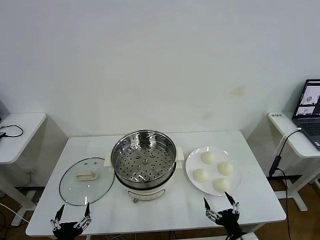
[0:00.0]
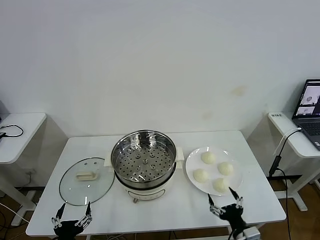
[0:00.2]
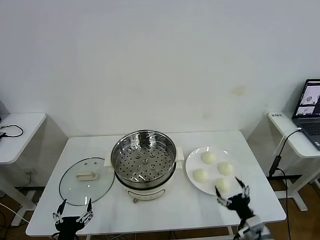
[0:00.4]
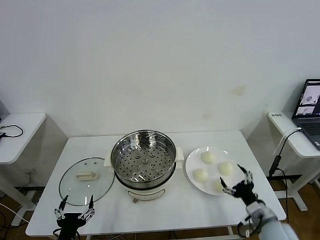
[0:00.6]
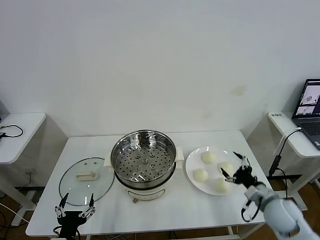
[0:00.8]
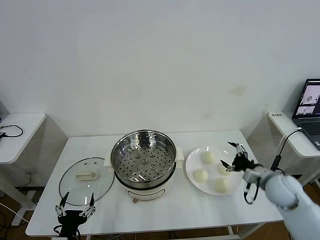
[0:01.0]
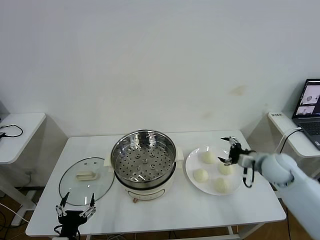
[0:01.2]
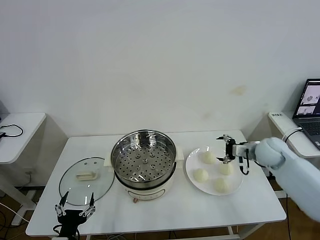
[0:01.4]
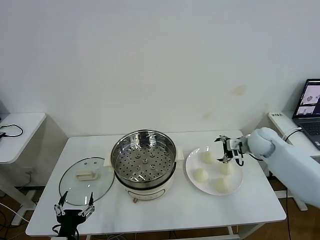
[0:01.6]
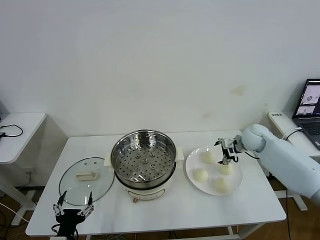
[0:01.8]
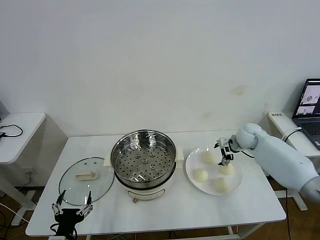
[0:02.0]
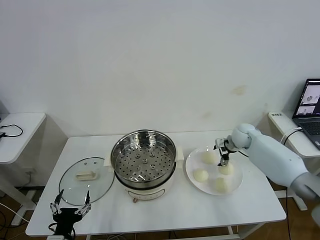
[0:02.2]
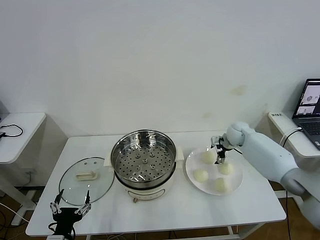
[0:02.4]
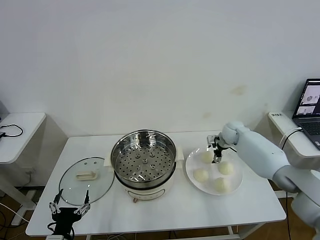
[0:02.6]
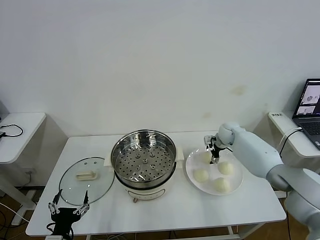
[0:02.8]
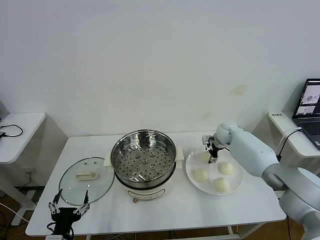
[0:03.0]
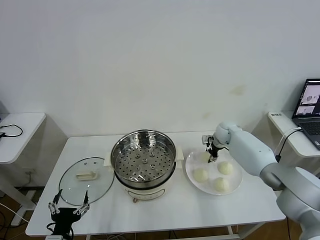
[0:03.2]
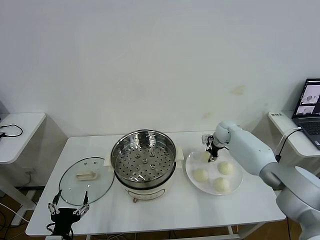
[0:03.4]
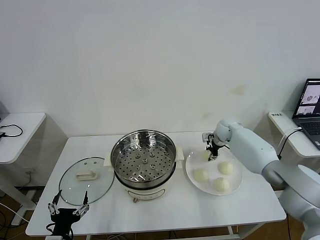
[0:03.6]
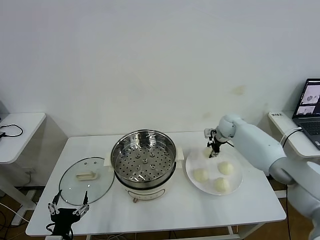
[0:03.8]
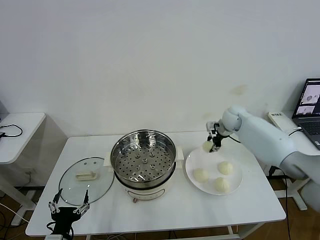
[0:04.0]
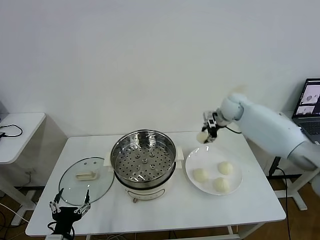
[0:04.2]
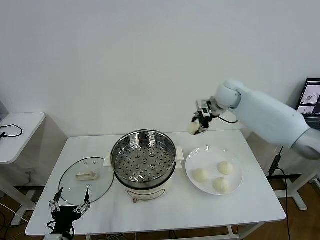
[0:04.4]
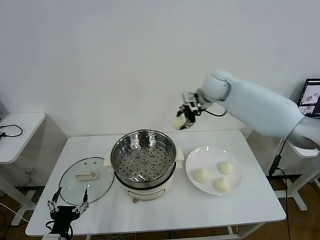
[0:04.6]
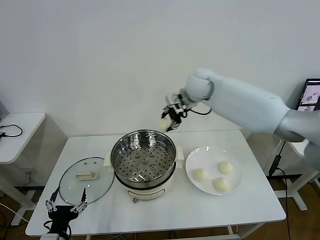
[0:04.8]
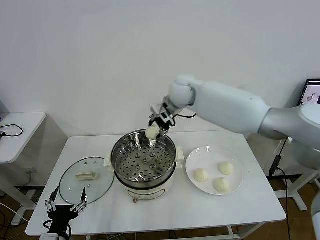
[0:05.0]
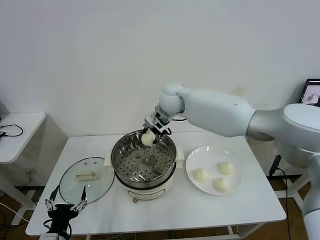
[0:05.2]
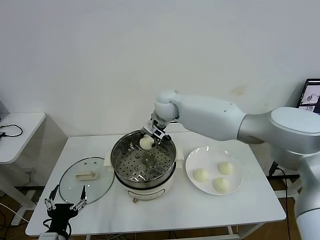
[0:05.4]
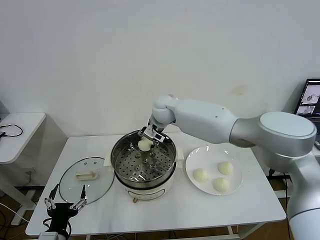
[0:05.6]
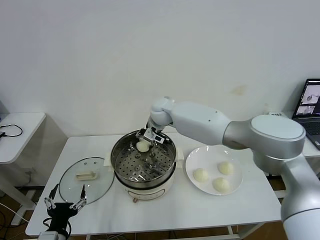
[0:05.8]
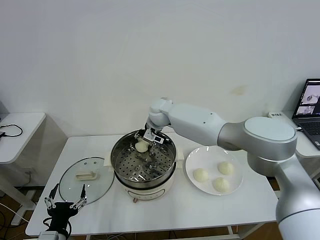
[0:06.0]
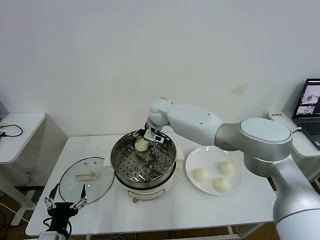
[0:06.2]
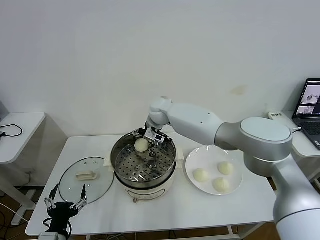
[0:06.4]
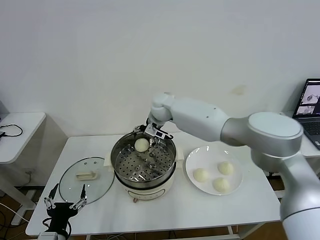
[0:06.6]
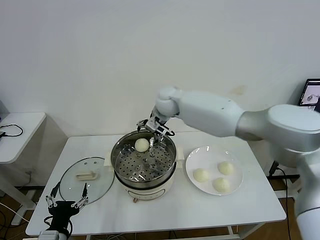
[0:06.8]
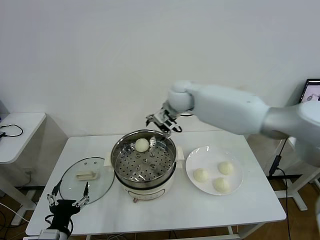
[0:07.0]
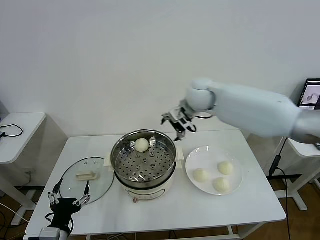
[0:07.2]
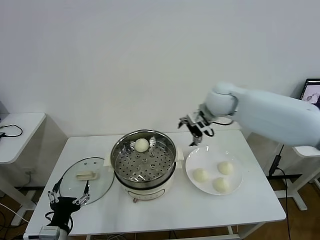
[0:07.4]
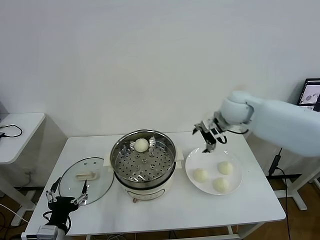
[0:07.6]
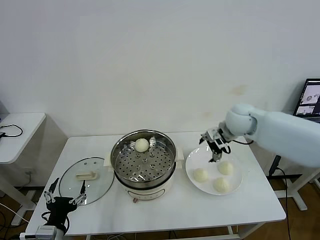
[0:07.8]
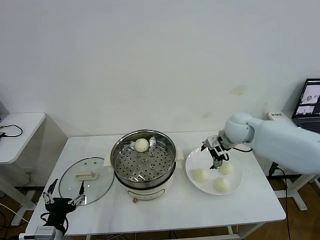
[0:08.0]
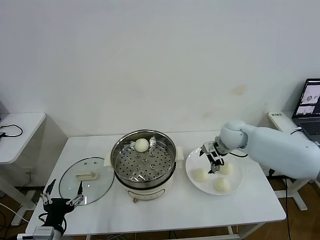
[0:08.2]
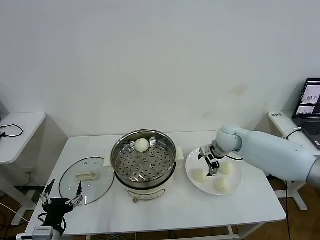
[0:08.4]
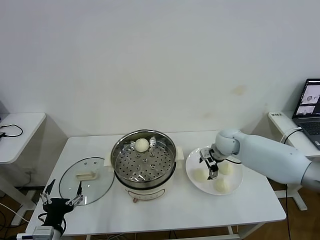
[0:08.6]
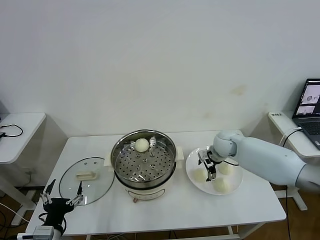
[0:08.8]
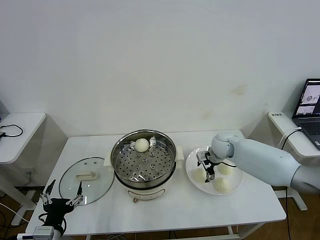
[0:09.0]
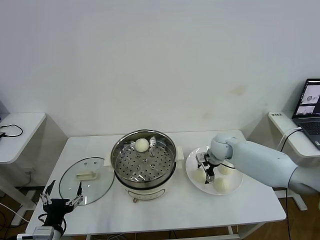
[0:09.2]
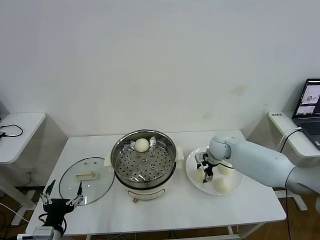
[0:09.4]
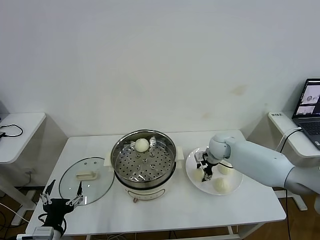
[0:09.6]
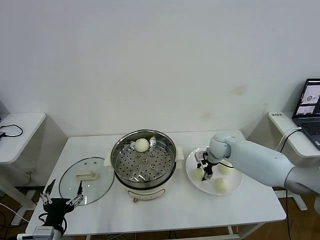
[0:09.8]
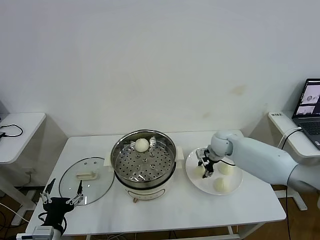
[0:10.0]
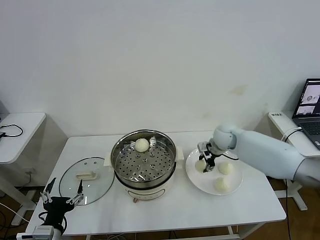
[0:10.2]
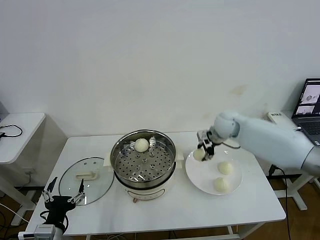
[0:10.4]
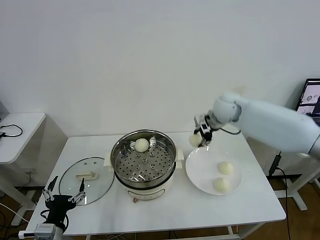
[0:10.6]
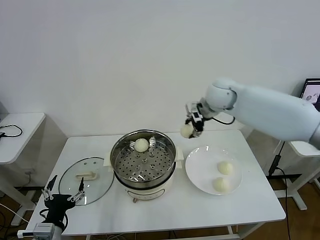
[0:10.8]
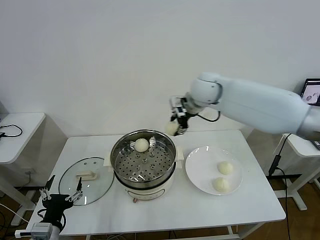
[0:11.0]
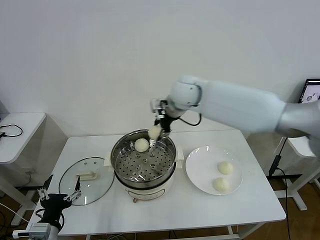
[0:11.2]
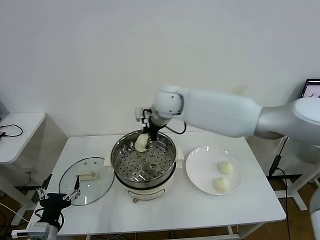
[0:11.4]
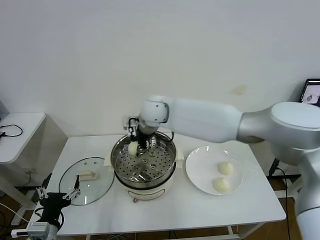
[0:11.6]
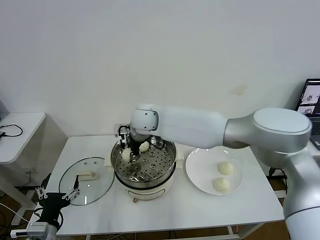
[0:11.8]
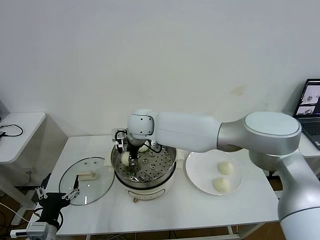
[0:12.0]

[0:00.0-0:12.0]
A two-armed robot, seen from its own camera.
Task of the whole recording: take steamed baozi put them in steamer then cover it.
Step, 0:00.0 to 0:03.2: Grasp the baozi in the plate with right gripper.
Step, 0:03.4 to 0:06.2: Place the baozi on the steamer with right gripper.
Step, 0:06.4 to 0:09.6: Grasp the baozi in the plate with right gripper.
0:01.6 to 0:03.0: The right gripper is displaced forward, to the left and downward by about 15 cm, and closes.
0:03.0 to 0:04.4: The right gripper moves upward, roughly 25 cm.
0:04.4 to 0:06.0: The right gripper moves to the left and downward, about 20 cm, and opens.
0:06.0 to 0:07.6: The right gripper goes some 25 cm to the right, and opens up.
0:07.6 to 0:09.0: The right gripper heads downward, covering about 15 cm.
0:09.0 to 0:10.4: The right gripper travels upward by about 15 cm, and closes up.
0:10.4 to 0:12.0: The right gripper travels to the left by some 30 cm.

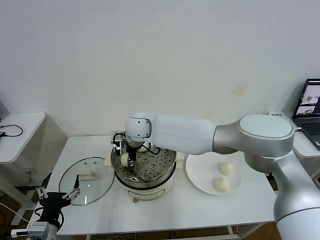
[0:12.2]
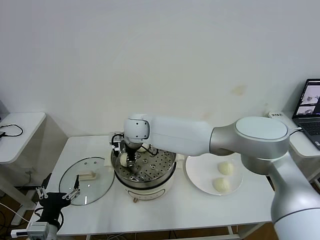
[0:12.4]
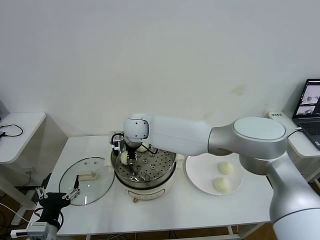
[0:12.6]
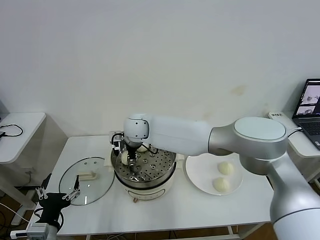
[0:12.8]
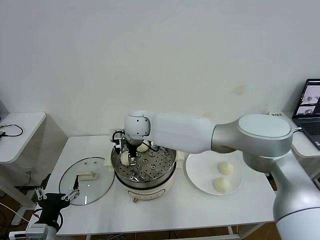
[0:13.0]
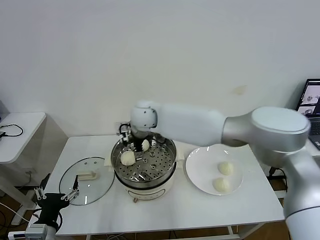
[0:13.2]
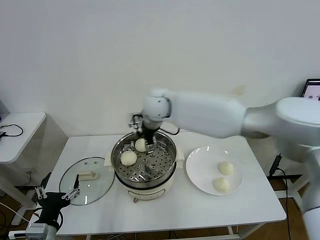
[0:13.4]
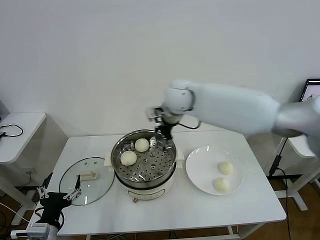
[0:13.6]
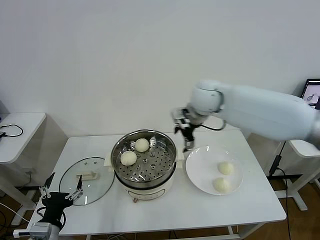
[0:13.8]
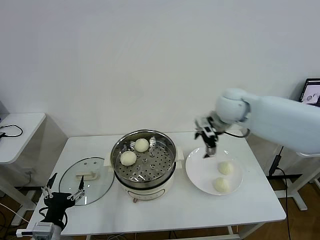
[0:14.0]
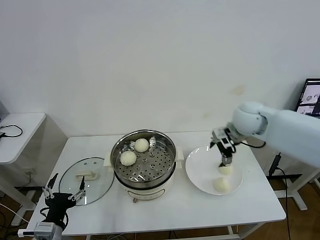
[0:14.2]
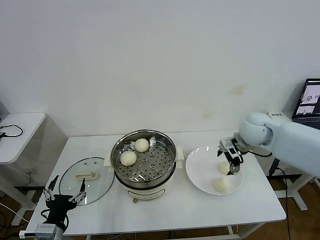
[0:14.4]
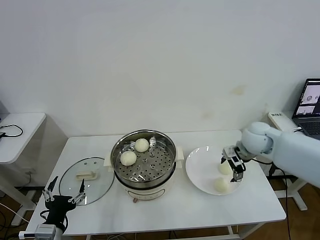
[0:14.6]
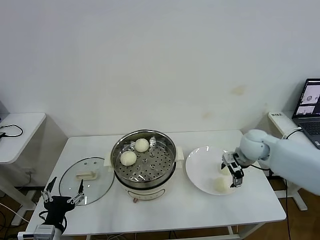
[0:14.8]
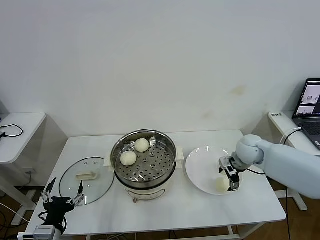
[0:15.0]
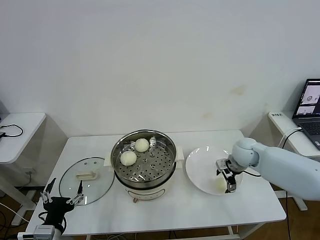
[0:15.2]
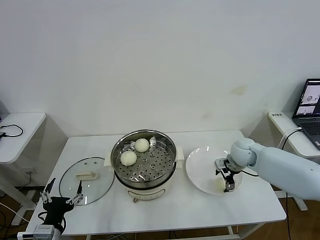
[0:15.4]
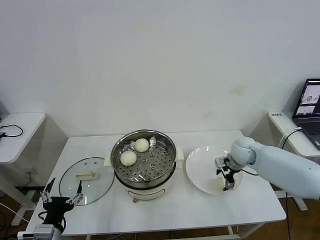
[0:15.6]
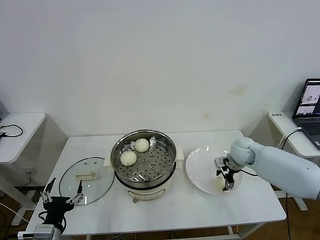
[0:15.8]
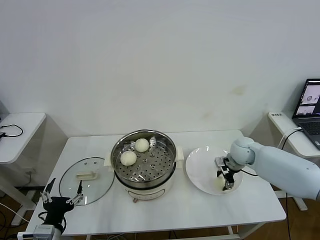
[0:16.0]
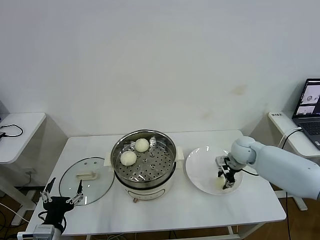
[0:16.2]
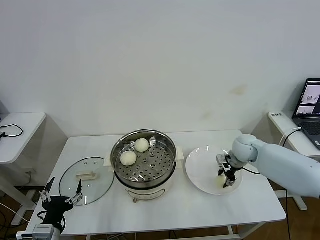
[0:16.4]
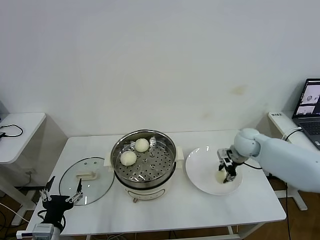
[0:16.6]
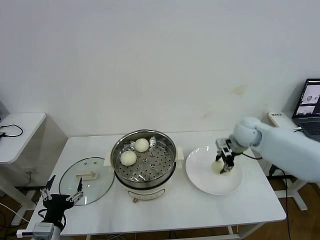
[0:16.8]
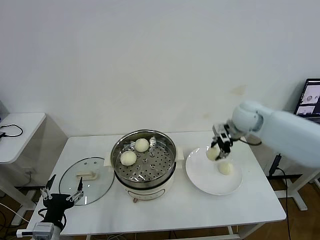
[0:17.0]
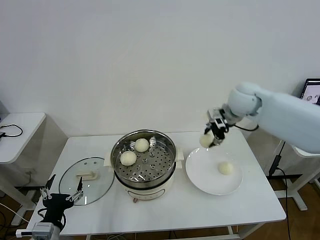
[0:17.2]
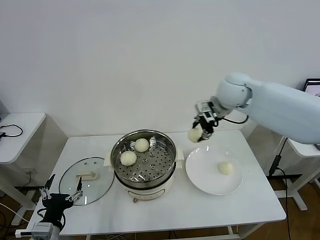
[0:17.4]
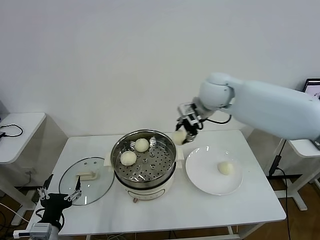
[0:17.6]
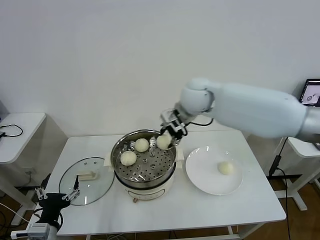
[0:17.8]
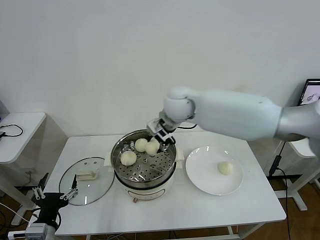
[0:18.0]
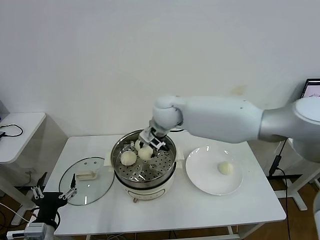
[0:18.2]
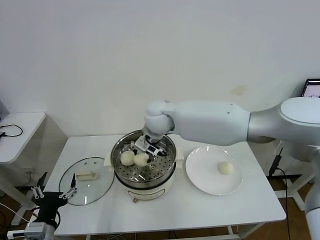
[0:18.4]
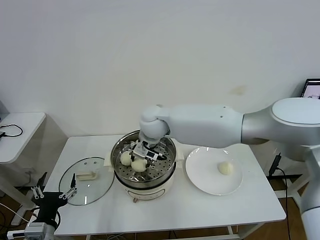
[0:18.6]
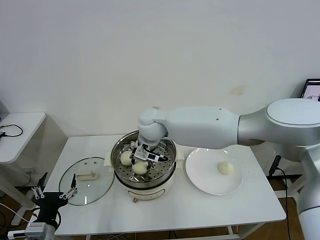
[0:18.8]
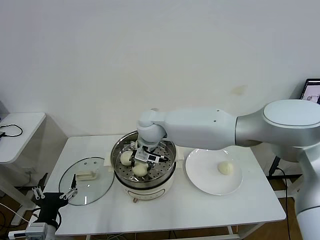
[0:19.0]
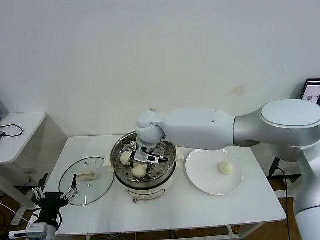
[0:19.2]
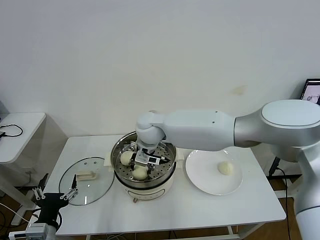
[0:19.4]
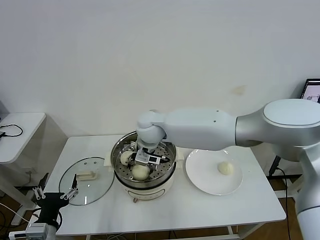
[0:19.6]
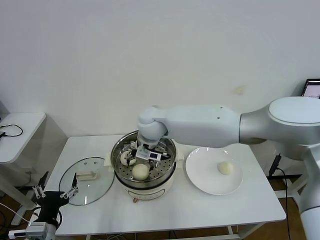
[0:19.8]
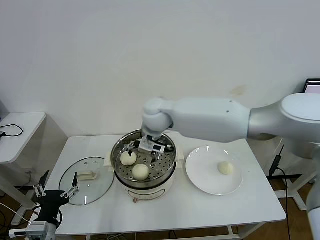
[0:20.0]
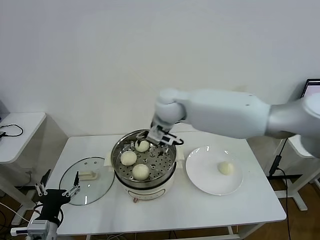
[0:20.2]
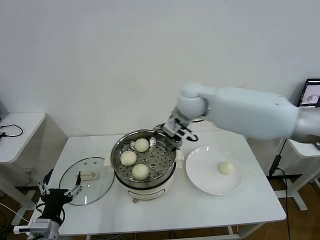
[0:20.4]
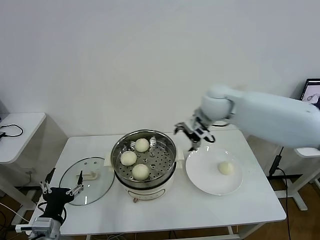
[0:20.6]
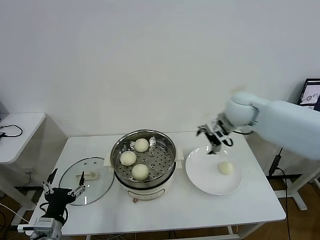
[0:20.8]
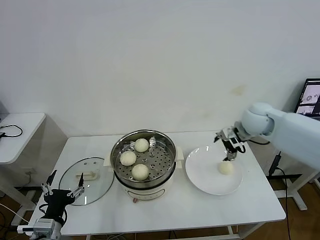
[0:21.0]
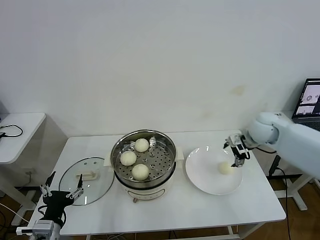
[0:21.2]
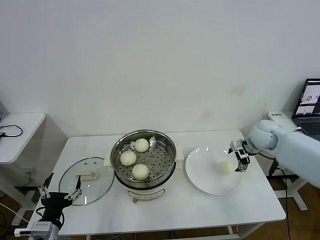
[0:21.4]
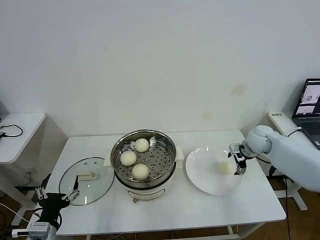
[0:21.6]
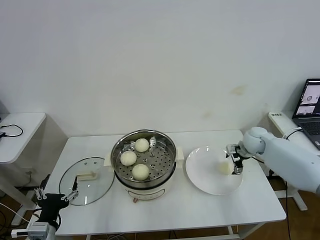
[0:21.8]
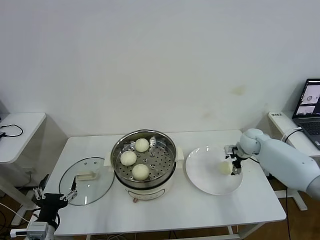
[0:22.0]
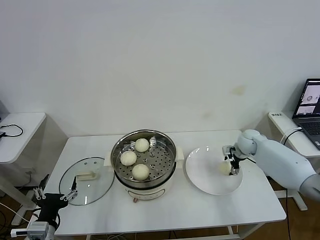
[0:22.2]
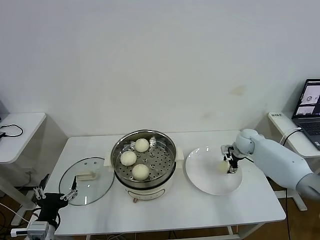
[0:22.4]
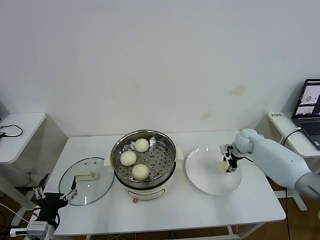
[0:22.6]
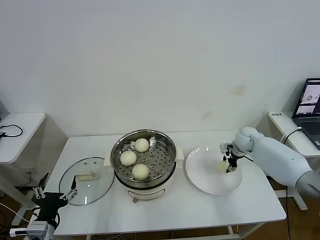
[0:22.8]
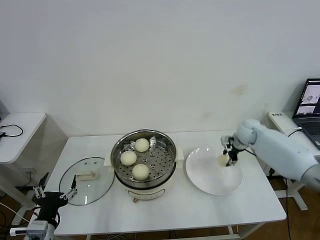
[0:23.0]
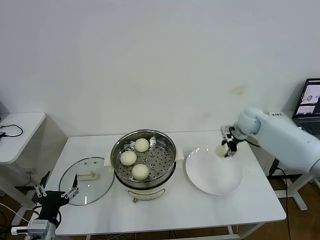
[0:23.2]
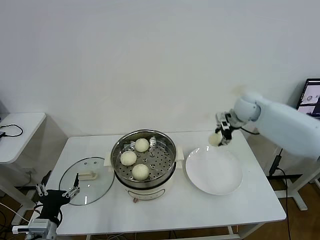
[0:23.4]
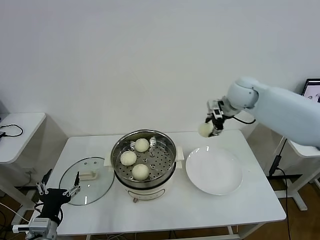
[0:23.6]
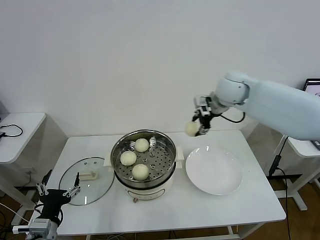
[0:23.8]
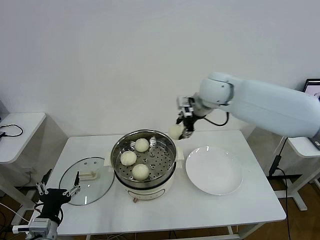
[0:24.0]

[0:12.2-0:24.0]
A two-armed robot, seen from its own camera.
Task of the whole recording: take steamed baozi put them in steamer then cover it.
Step, 0:13.0 to 0:16.0: Grasp the baozi in the plate with right gripper.
Step, 0:16.4 to 0:19.6: Place the baozi on the steamer with right gripper.
Step, 0:19.8 to 0:22.4: Grasp the baozi in the plate with right gripper.
0:12.2 to 0:13.6: The right gripper travels to the right and upward by some 20 cm, and opens.
0:13.6 to 0:15.2: The right gripper heads to the right and downward, covering approximately 30 cm.
0:15.2 to 0:16.6: The right gripper changes place by roughly 5 cm, and closes its fingers.
0:16.6 to 0:18.2: The right gripper is displaced to the left by roughly 30 cm.
0:18.2 to 0:19.6: The right gripper moves approximately 5 cm, and opens up.
0:19.6 to 0:21.0: The right gripper travels to the right by some 35 cm.
0:21.0 to 0:22.6: The right gripper goes some 15 cm downward, and closes its fingers.
0:22.6 to 0:24.0: The right gripper moves upward and to the left, some 35 cm.
